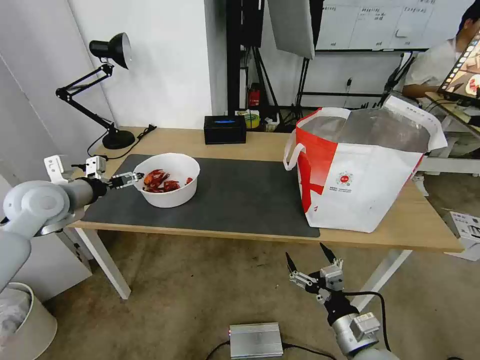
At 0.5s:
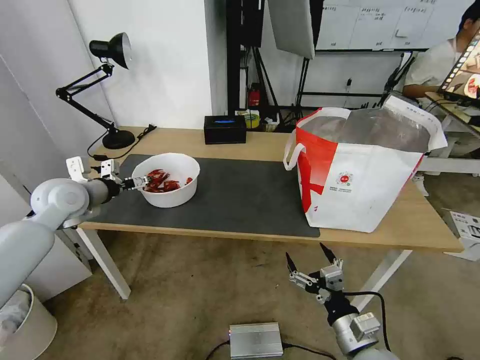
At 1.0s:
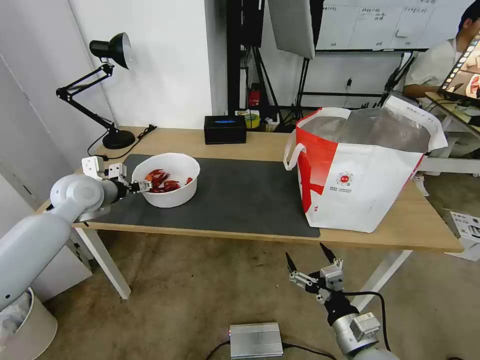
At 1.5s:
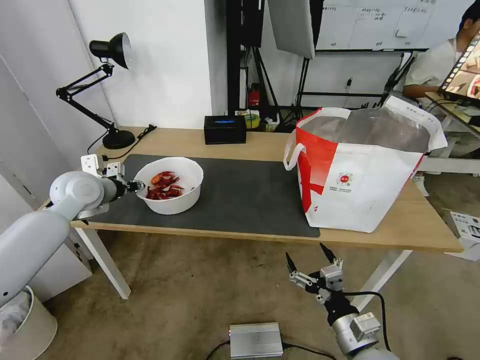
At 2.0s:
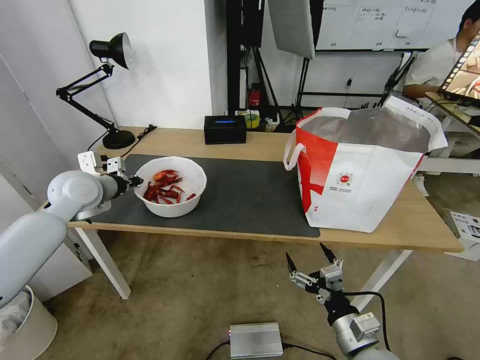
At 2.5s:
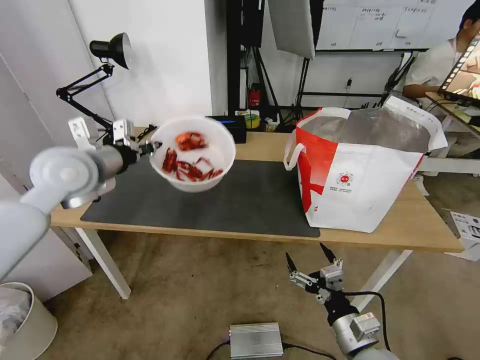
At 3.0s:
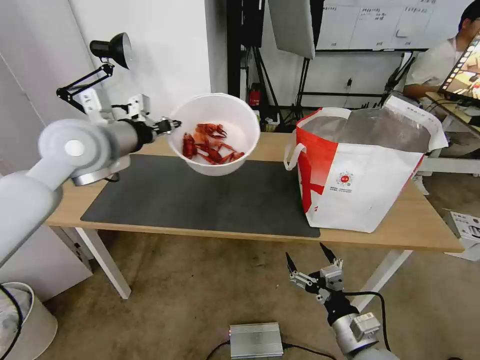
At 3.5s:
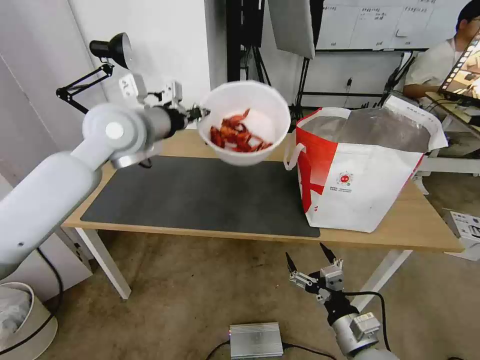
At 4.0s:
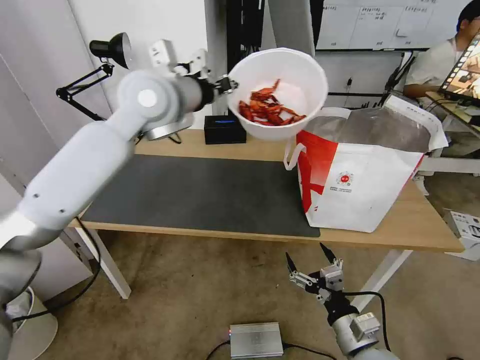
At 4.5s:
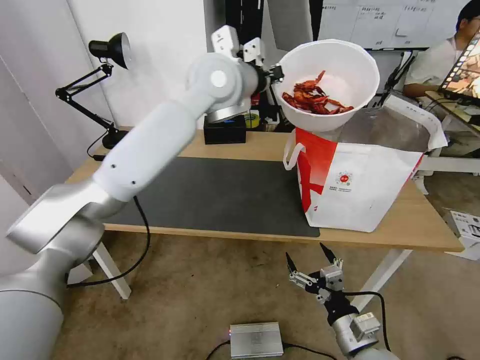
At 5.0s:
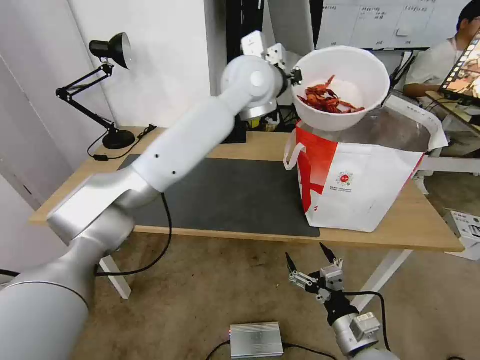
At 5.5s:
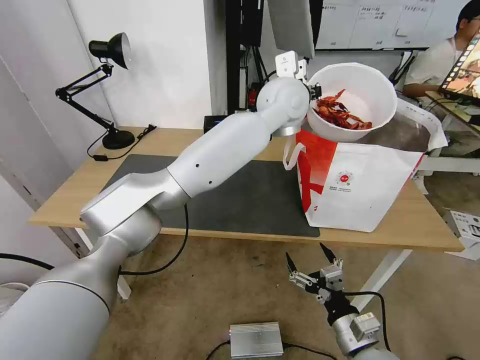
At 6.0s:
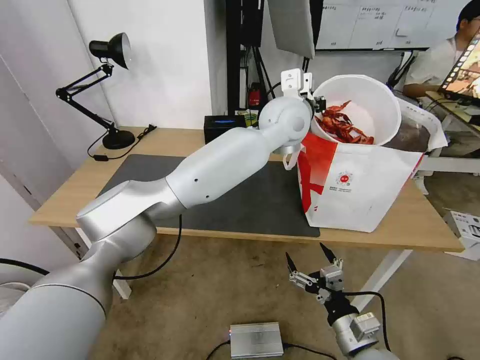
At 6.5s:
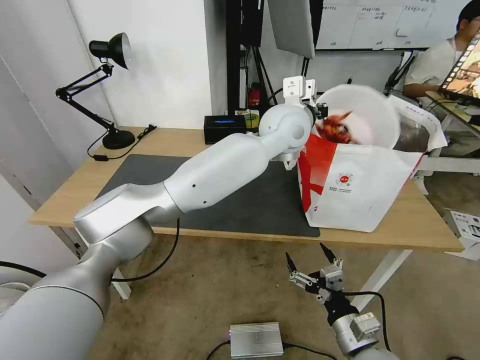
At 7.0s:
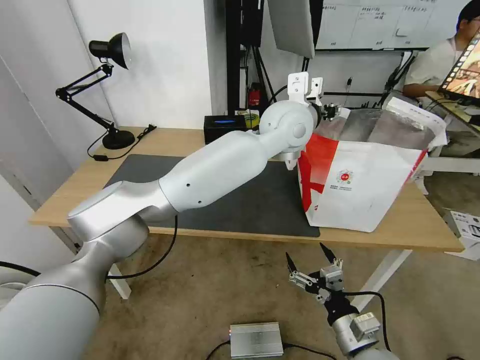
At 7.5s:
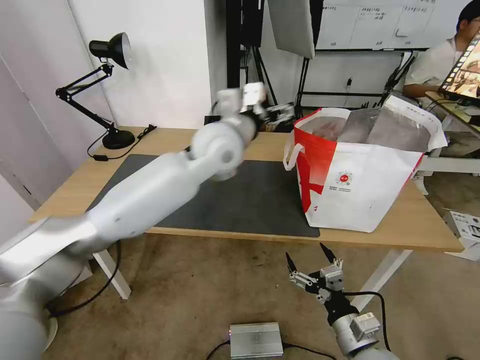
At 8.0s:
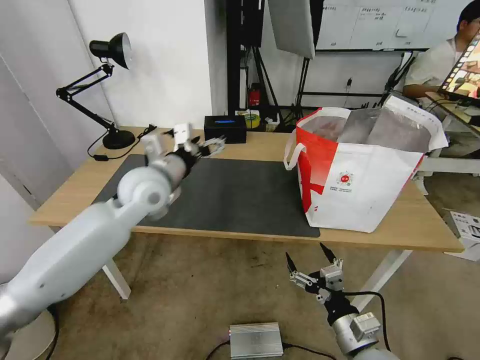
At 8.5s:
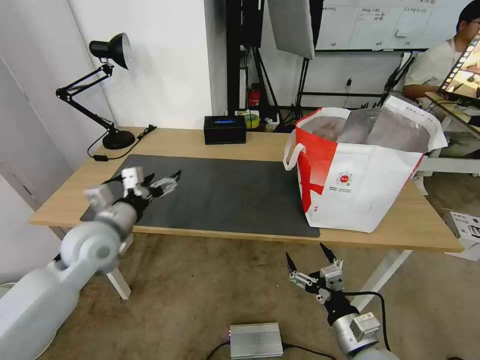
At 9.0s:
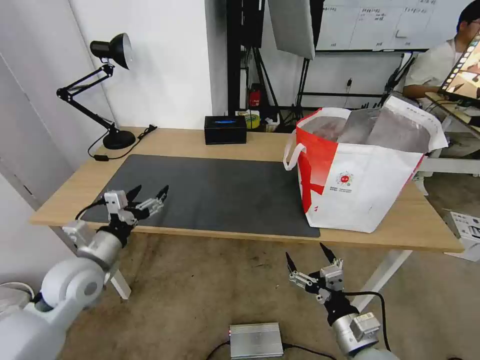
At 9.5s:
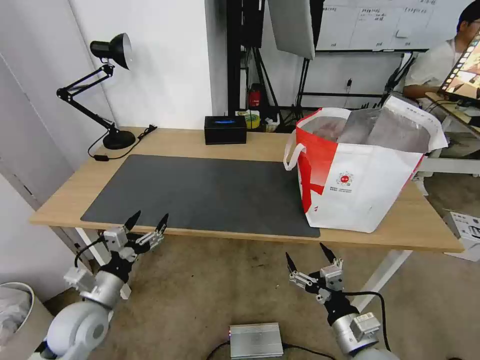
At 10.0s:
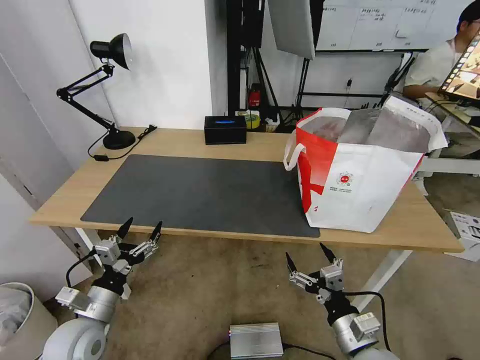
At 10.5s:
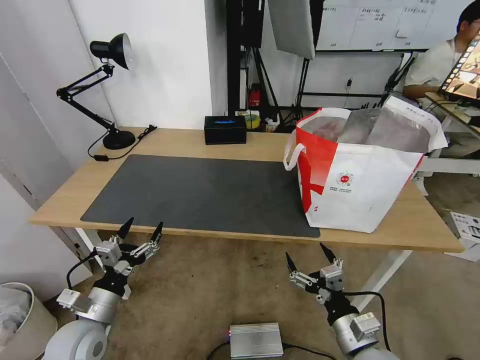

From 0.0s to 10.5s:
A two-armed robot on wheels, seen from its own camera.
Task of the whole recording: Pick up the trash from the table and place it into the takeout bag.
From 0.0s to 2.0s: The left gripper moves about 5 cm, and closes up.
From 2.0s to 4.0s: The left gripper shifts about 30 cm to the right and upward.
From 4.0s to 6.5s: The left gripper heads to the right, covering roughly 20 cm.
From 6.5s to 8.5s: The left gripper heads to the left, downward and backward, covering roughly 40 cm, and opens its fingers.
From 8.5s to 10.5s: The left gripper is displaced downward and backward by about 20 cm.

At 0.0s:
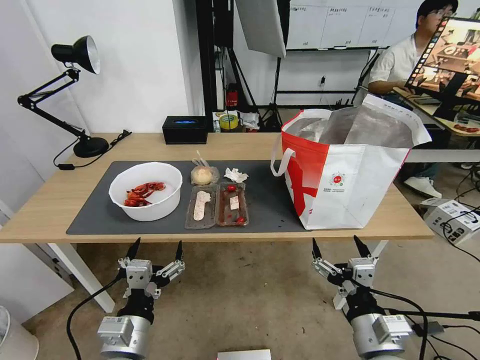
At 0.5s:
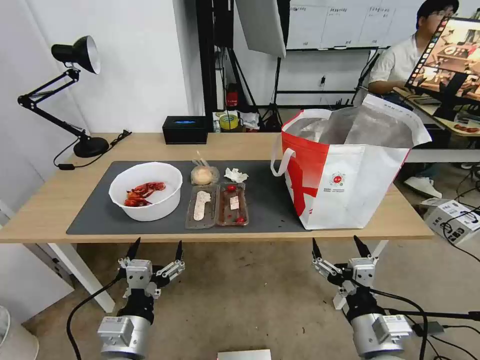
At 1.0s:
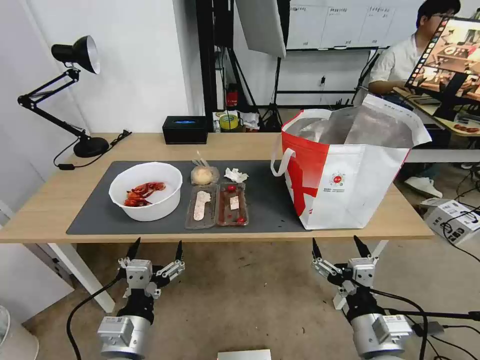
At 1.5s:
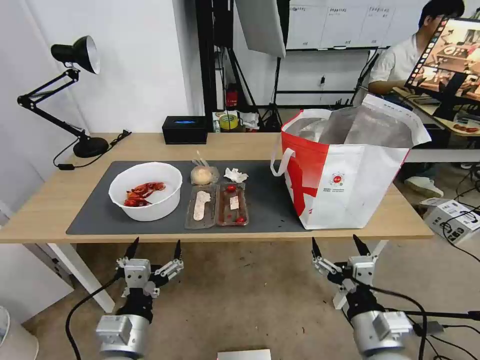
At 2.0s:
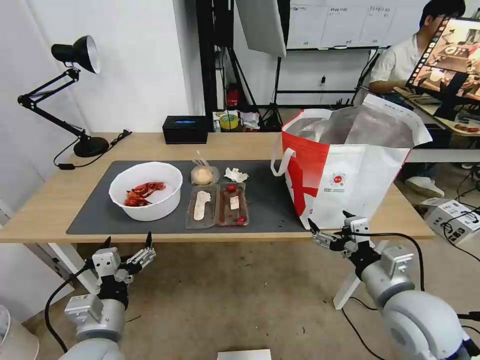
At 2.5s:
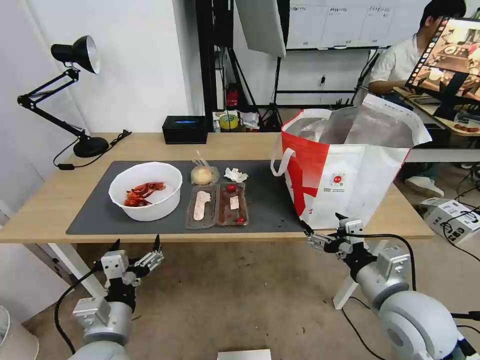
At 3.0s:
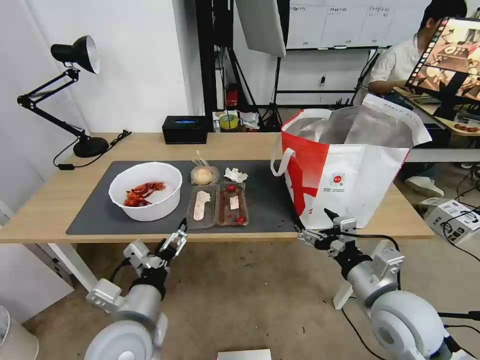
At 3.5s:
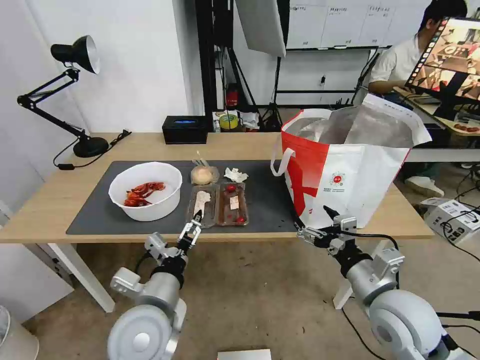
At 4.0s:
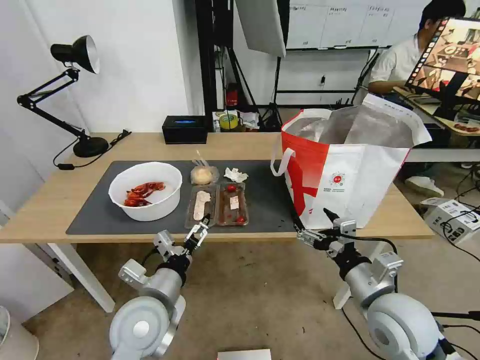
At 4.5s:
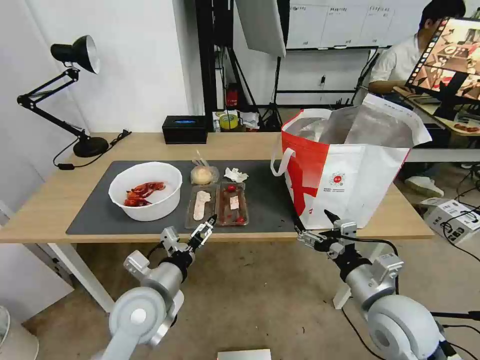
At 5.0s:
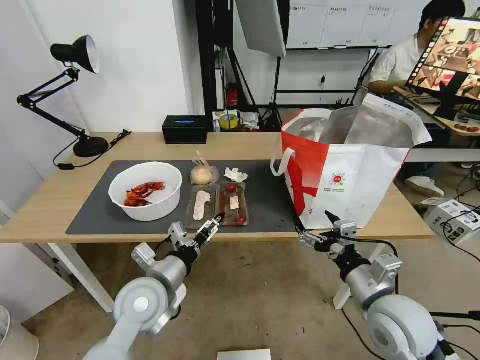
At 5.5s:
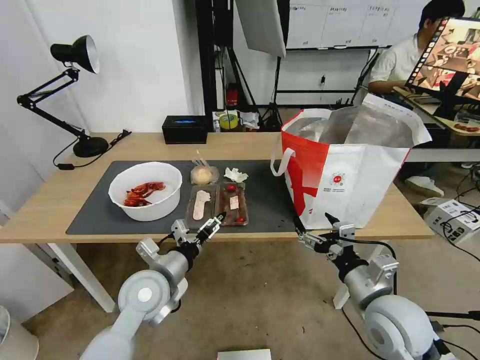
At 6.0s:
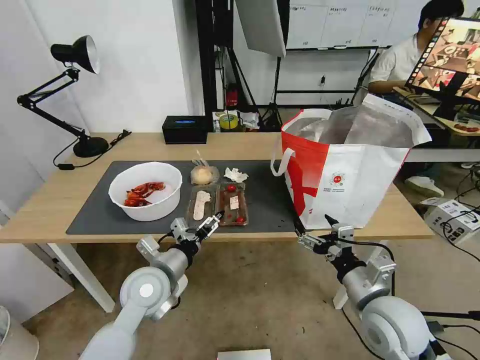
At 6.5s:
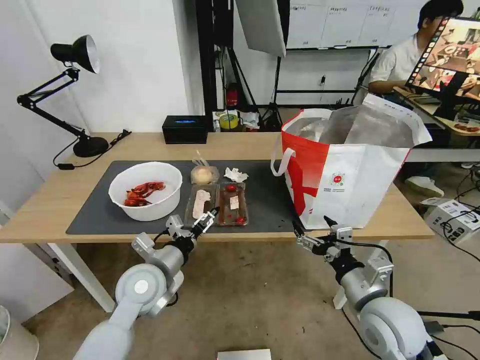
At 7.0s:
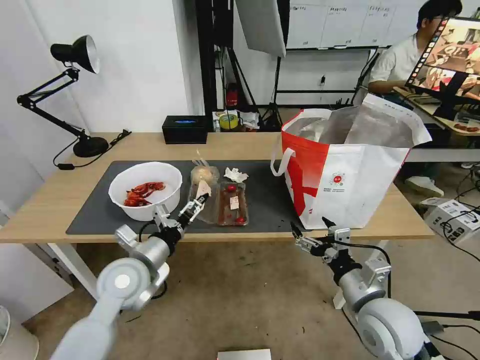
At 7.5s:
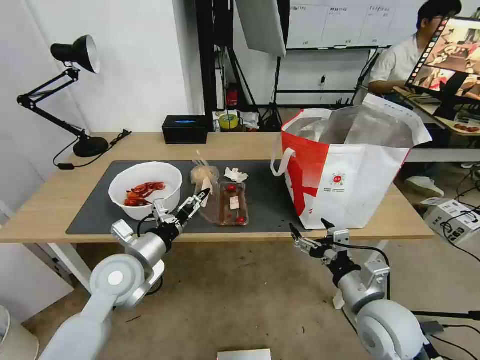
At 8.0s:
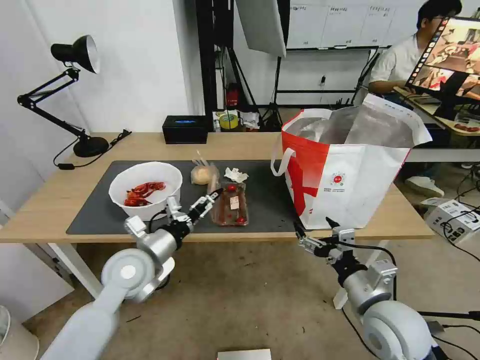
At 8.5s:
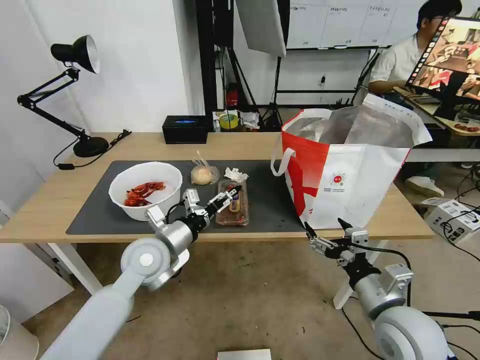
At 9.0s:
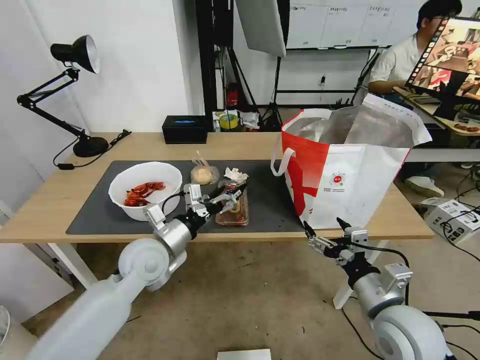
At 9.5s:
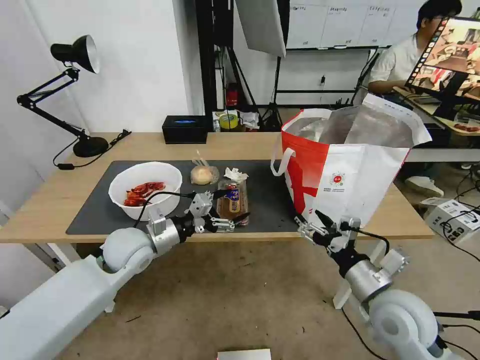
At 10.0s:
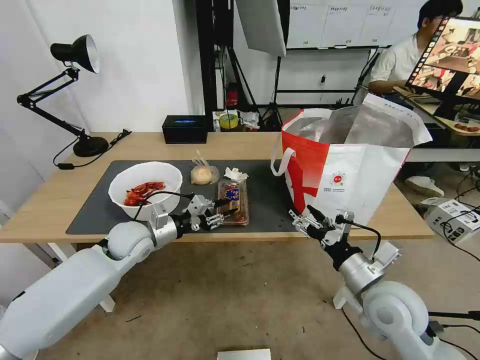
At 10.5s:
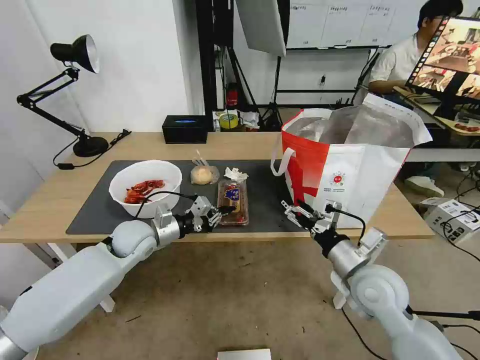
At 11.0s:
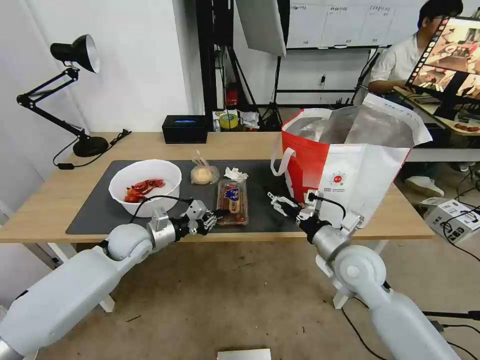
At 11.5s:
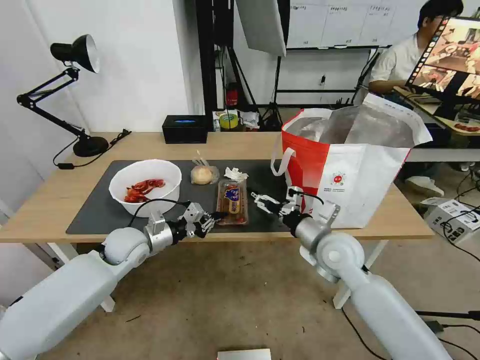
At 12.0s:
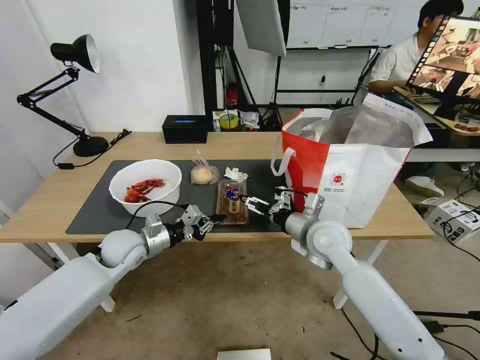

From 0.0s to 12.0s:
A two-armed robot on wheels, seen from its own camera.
Task of the whole recording: Pick up the trash from the table and place it into the takeout bag.
From 2.0s to 4.0s: The left gripper shifts approximately 10 cm to the right and forward.
From 4.0s to 6.0s: The left gripper moves forward, approximately 5 cm.
From 6.0s to 8.0s: The left gripper moves some 5 cm.
From 8.0s to 10.0s: The left gripper heads forward, covering approximately 10 cm, and closes.
From 10.0s to 12.0s: The right gripper heads forward and to the left, covering about 15 cm.

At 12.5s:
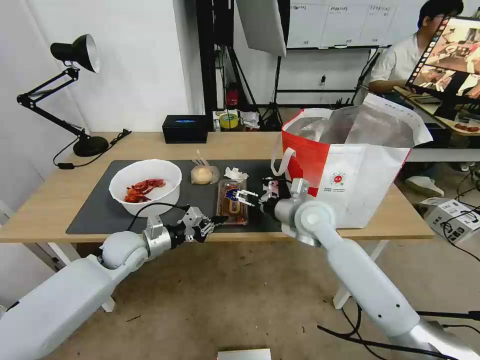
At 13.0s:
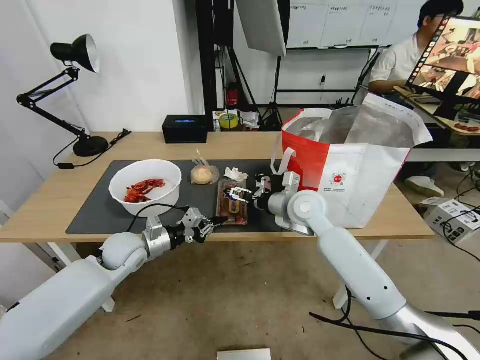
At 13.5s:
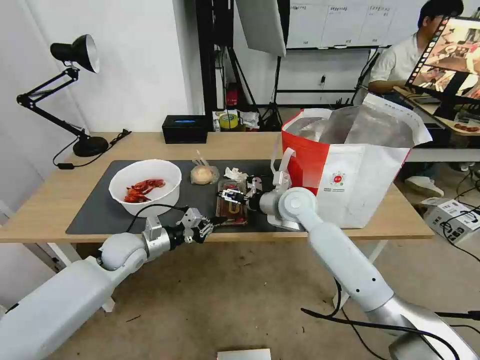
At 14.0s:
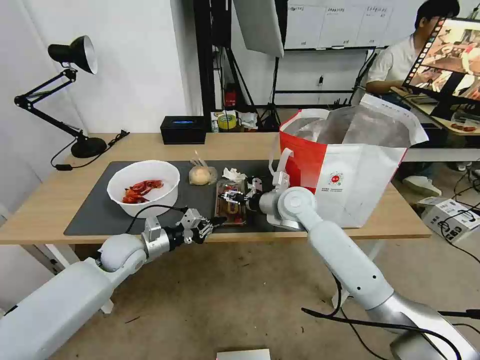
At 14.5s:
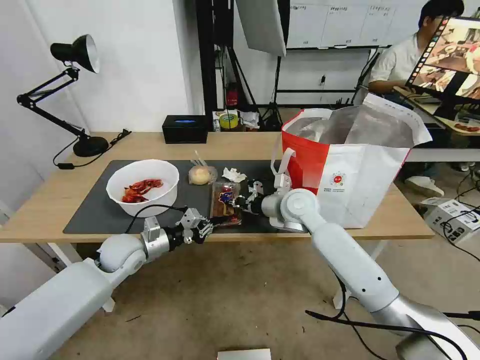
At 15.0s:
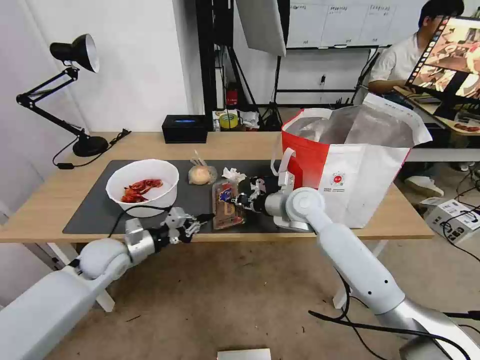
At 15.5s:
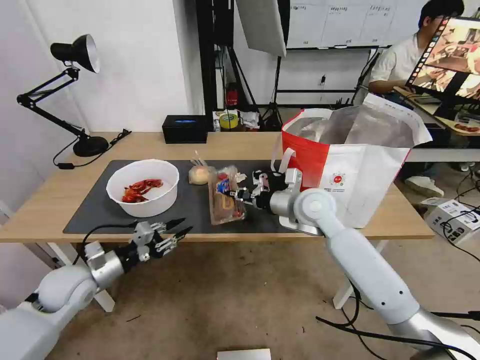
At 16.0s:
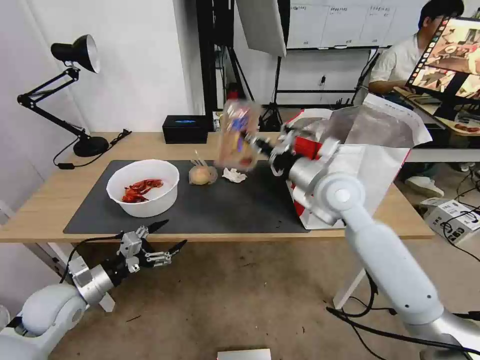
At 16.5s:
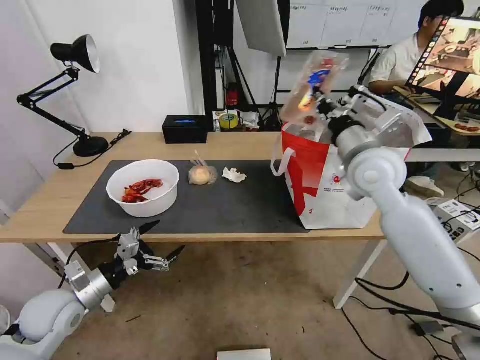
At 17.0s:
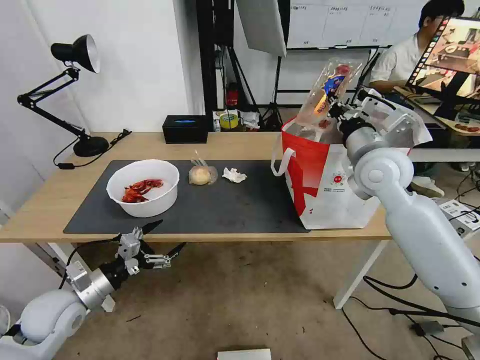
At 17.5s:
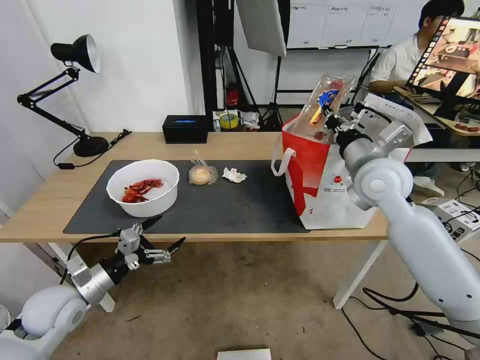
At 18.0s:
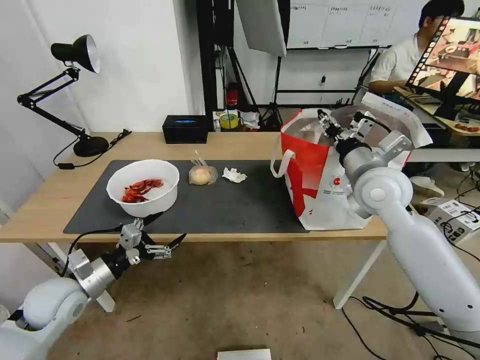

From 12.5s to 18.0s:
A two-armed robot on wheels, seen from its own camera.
Task of the whole recording: Pick up the trash from the table and place it into the takeout bag.
From 12.5s to 14.5s: The right gripper ends up roughly 5 cm from where it was, and closes.
From 14.5s to 16.0s: The right gripper heads upward and backward, covering roughly 10 cm. Meanwhile the left gripper heads backward and to the left, covering approximately 15 cm, and opens its fingers.
From 16.0s to 18.0s: The right gripper travels to the right by about 10 cm, and opens.
